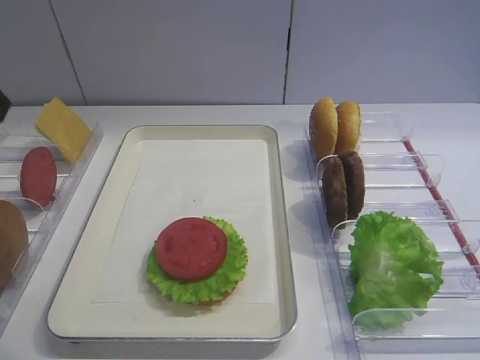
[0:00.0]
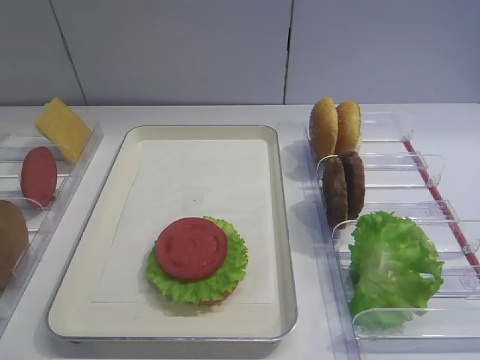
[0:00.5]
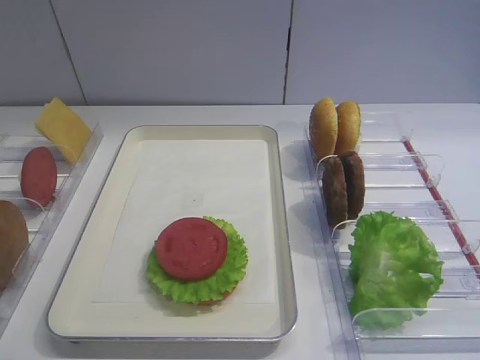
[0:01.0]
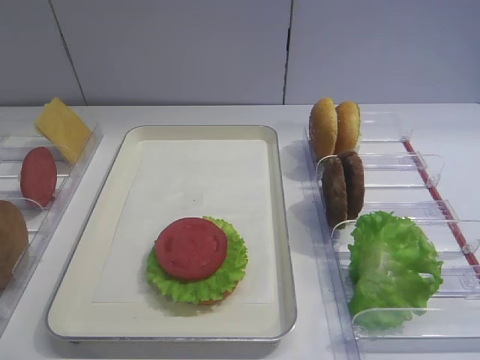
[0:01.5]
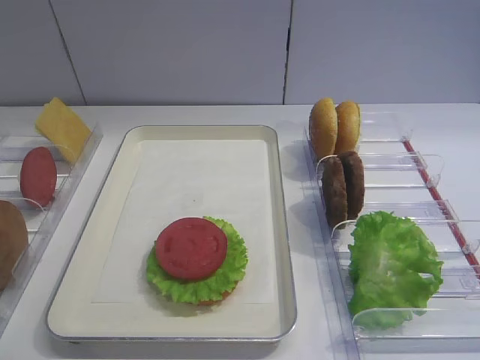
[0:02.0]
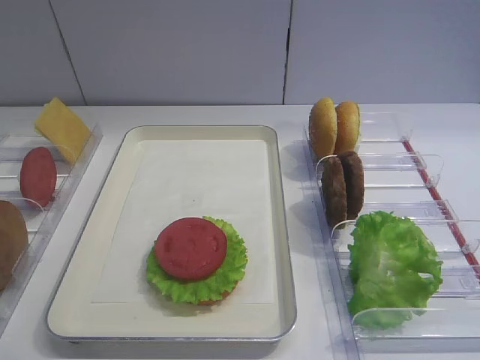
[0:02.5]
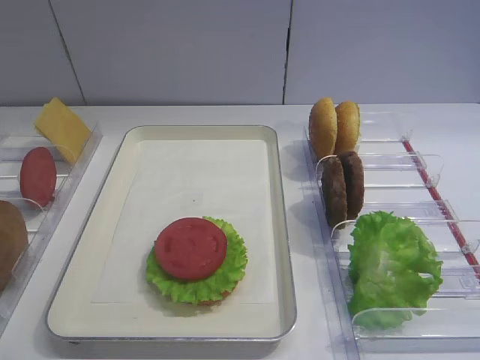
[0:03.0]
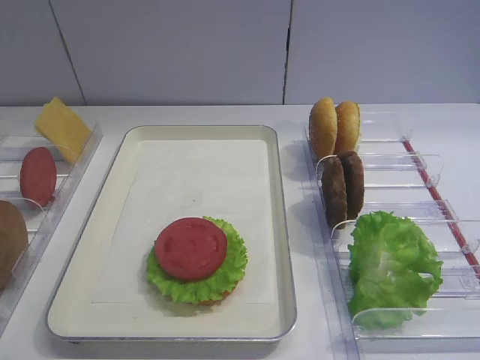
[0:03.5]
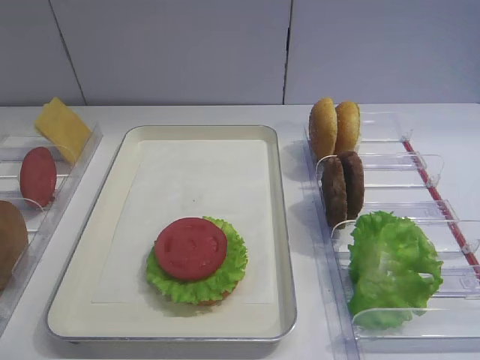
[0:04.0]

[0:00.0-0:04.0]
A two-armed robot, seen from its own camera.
0:02.0 to 0:04.0: Both grippers stay put.

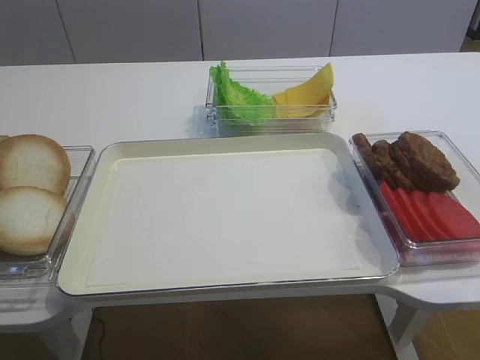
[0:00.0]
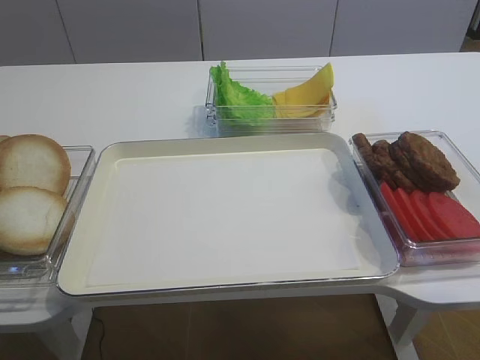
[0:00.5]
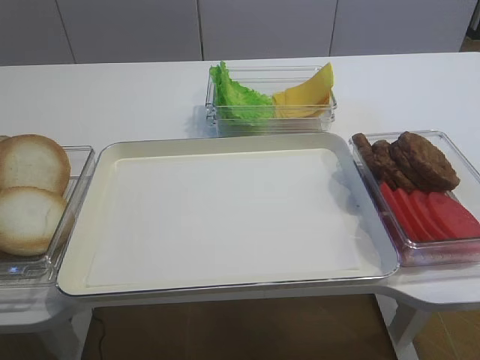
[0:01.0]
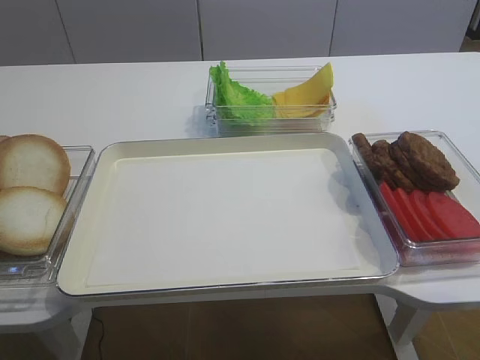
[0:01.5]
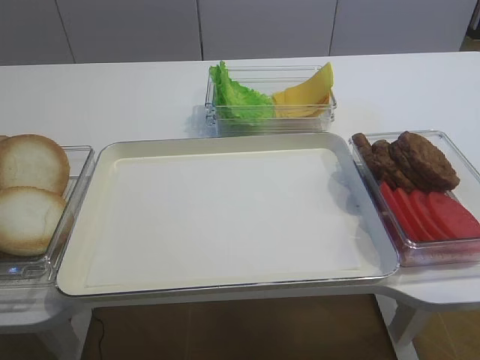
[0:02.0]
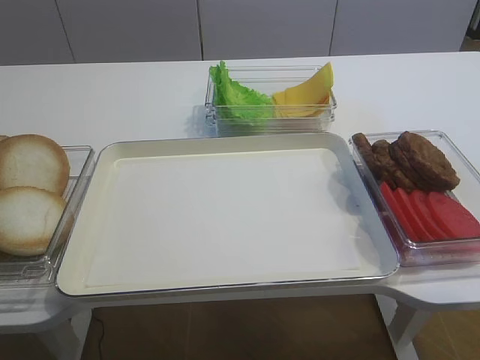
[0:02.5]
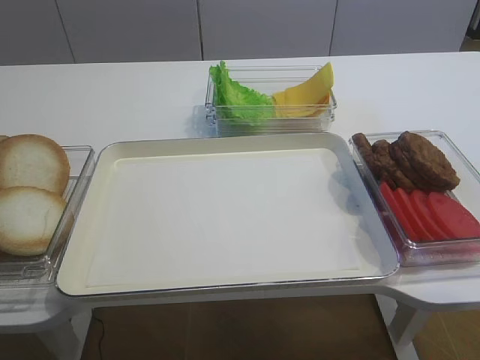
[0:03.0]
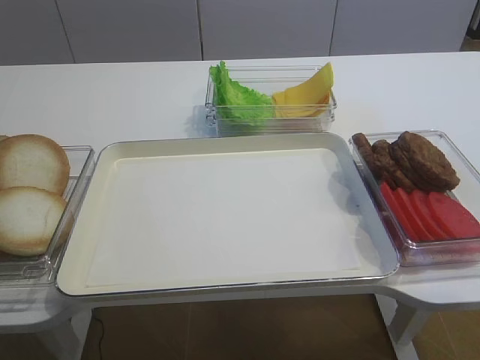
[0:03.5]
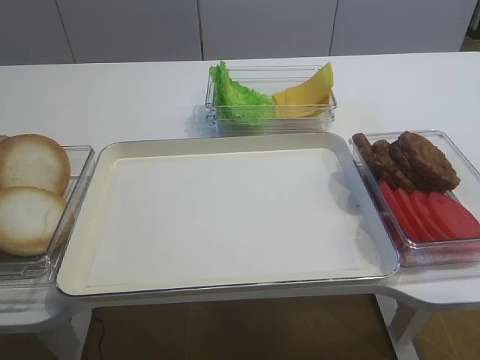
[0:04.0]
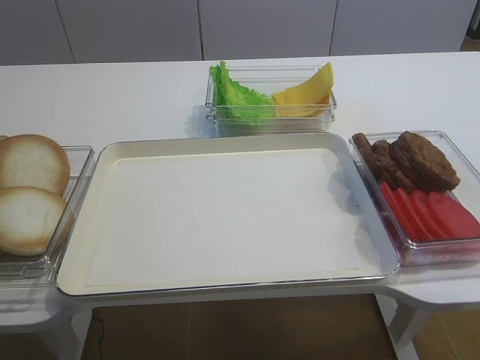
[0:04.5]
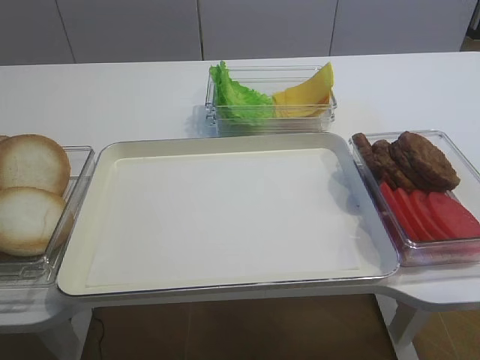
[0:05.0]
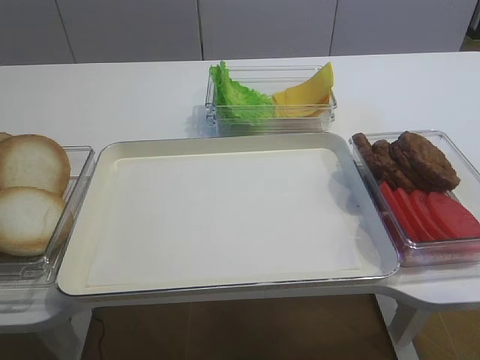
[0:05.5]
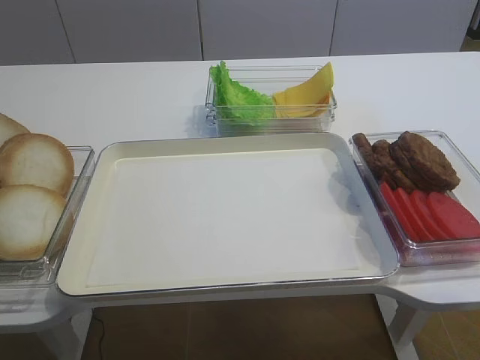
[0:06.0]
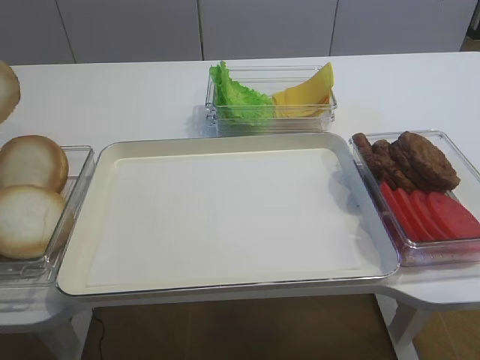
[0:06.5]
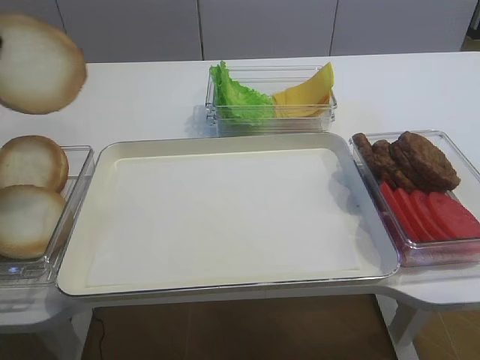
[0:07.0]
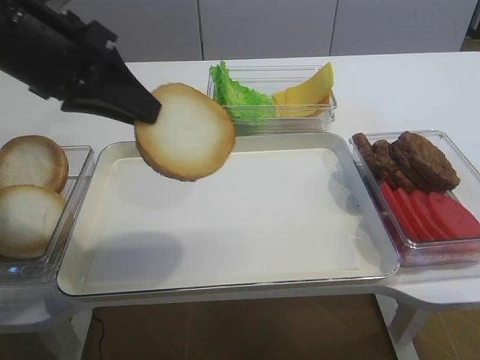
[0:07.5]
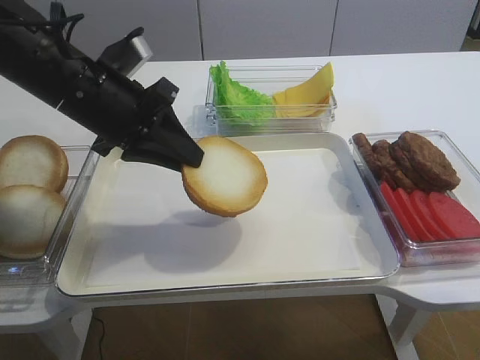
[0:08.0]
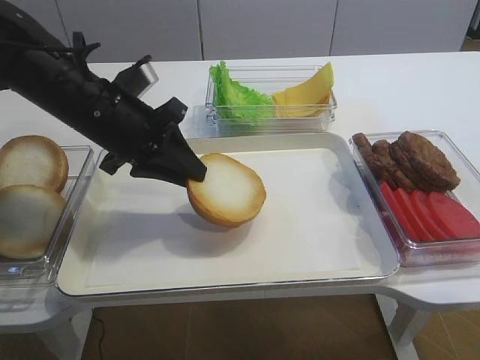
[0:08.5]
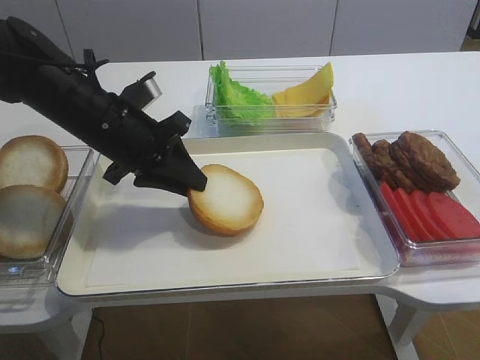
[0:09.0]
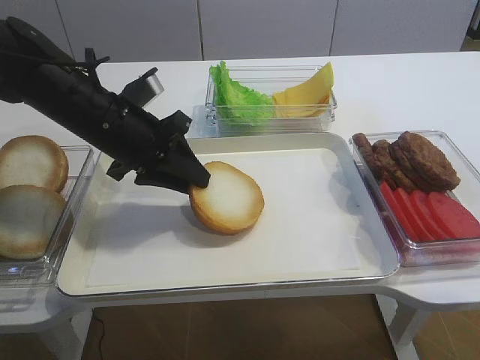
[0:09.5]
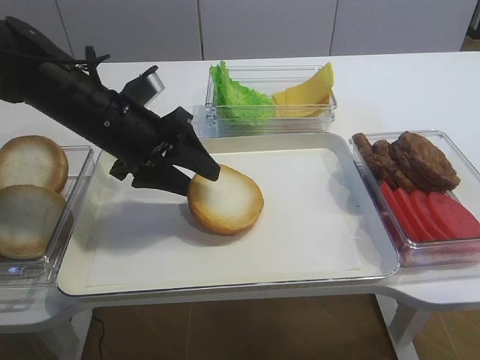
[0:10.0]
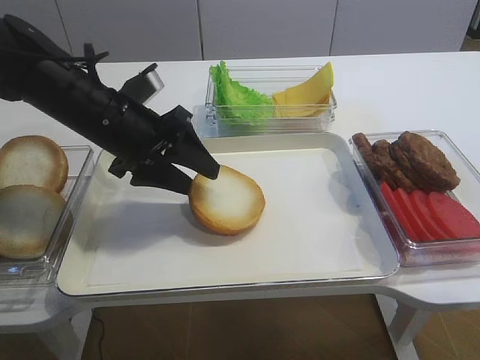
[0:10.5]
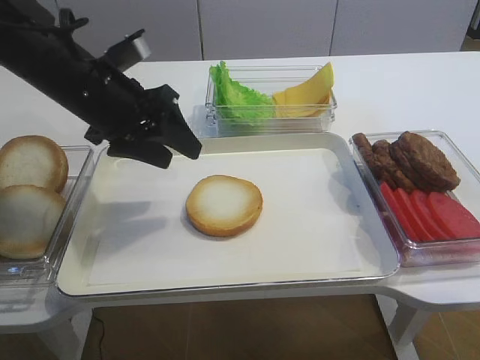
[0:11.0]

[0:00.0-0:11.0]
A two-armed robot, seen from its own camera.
Step, 0:00.0 to 0:06.0: Pick up the bread slice with the left gripper.
Step, 0:06.5 to 0:10.5: Place the bread slice on the tray with the left gripper.
0:05.5 to 0:07.5: The left gripper travels to the right by some 20 cm.
0:07.5 to 0:09.0: The left gripper travels downward by about 5 cm.
0:09.0 to 0:11.0: The left gripper moves upward, about 10 cm, and opens its fingers.

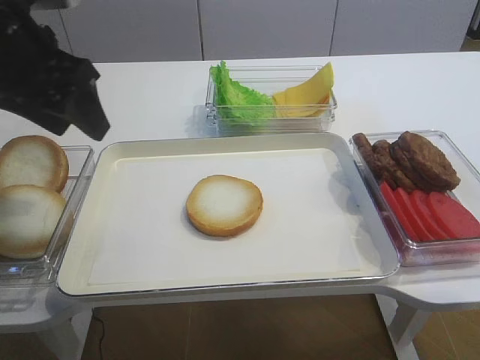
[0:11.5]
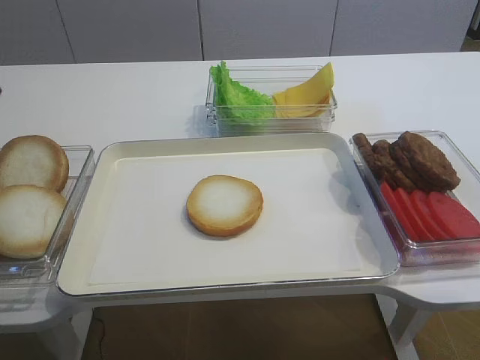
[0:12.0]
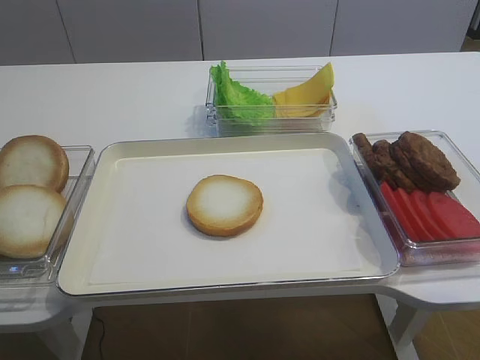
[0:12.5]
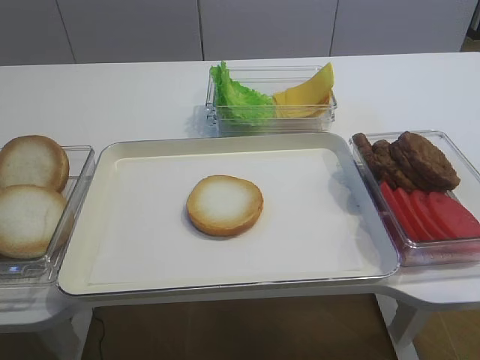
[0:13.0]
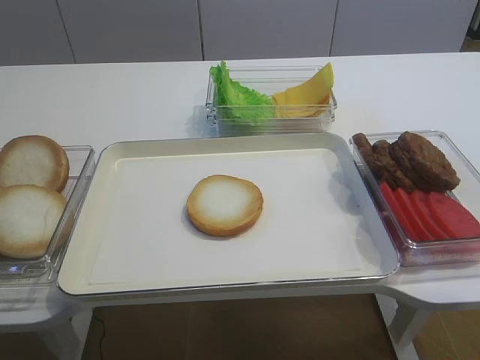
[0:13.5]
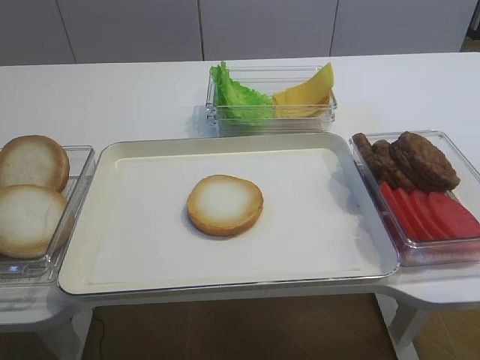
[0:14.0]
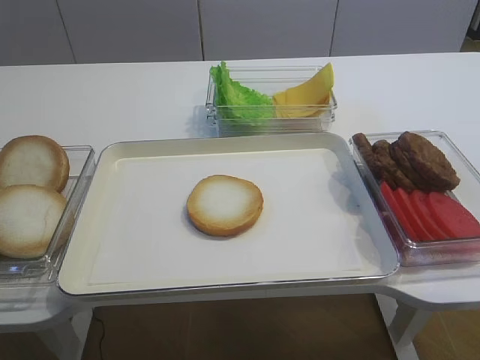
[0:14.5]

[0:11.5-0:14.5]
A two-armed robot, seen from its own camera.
0:11.5 to 0:13.0: The left gripper travels backward by some 25 cm.

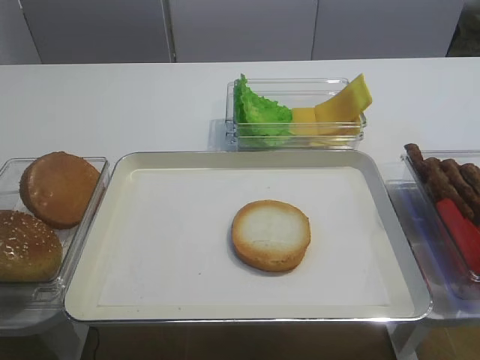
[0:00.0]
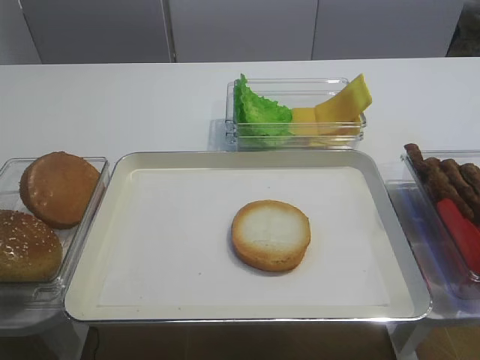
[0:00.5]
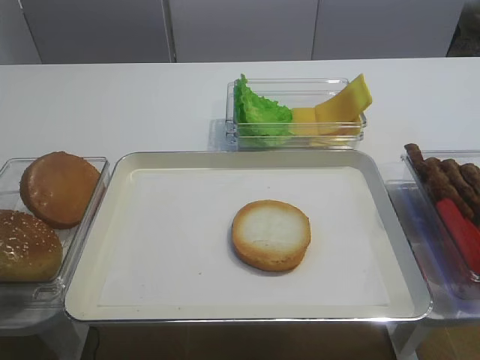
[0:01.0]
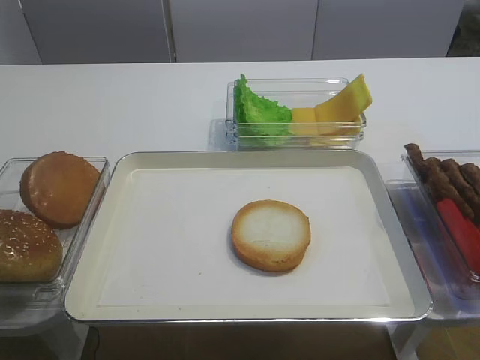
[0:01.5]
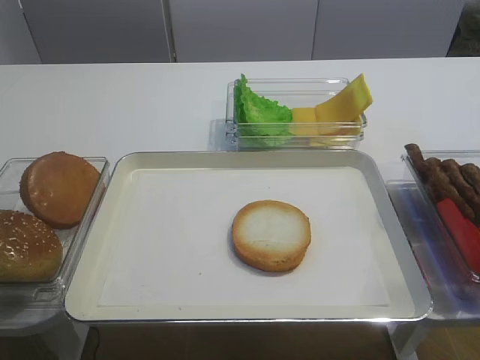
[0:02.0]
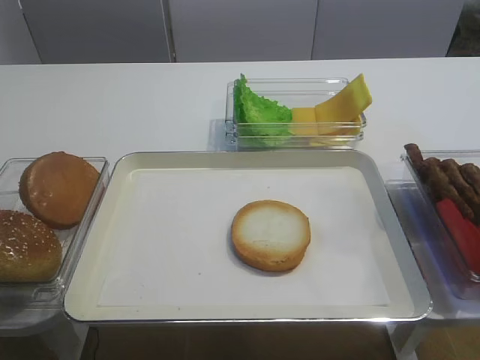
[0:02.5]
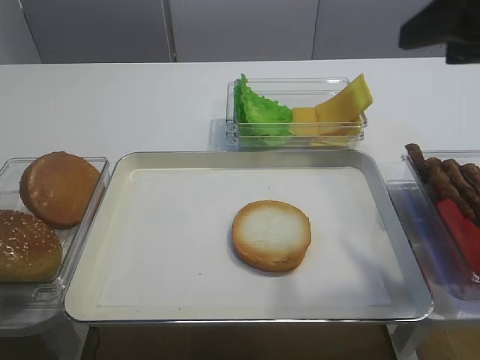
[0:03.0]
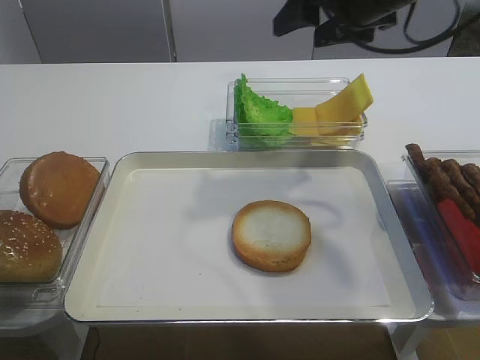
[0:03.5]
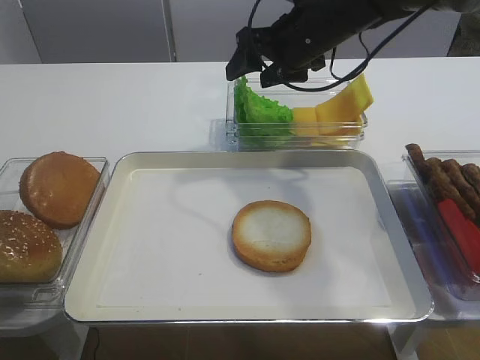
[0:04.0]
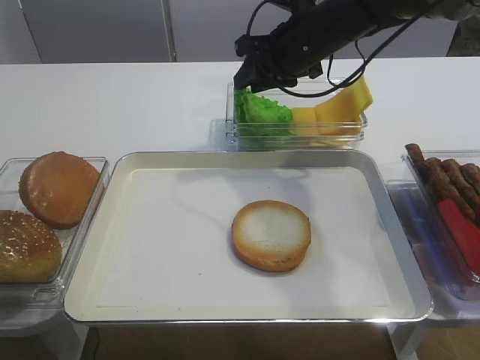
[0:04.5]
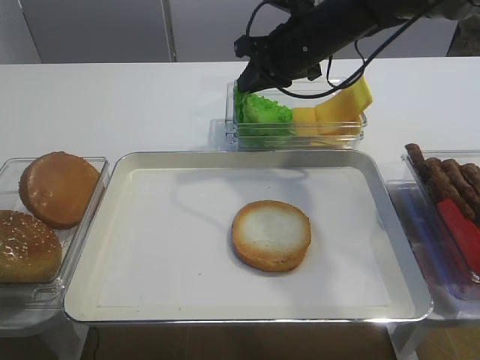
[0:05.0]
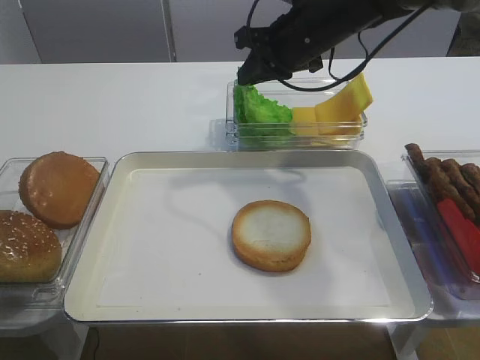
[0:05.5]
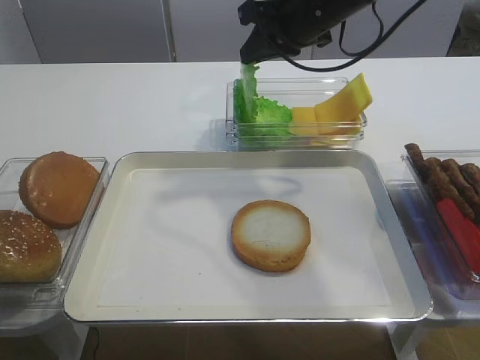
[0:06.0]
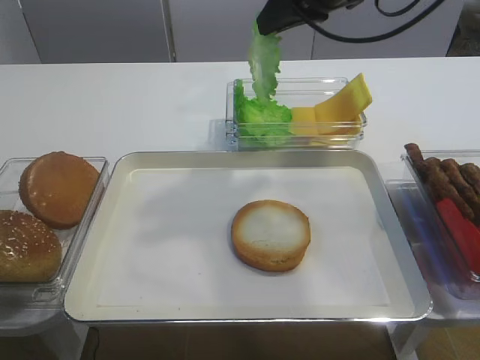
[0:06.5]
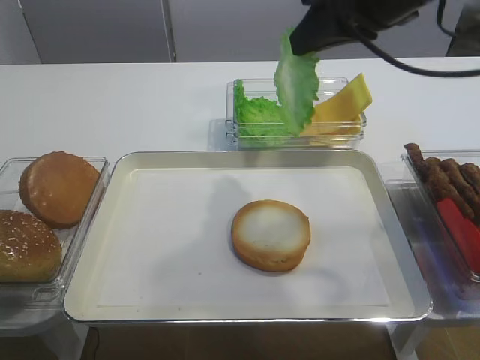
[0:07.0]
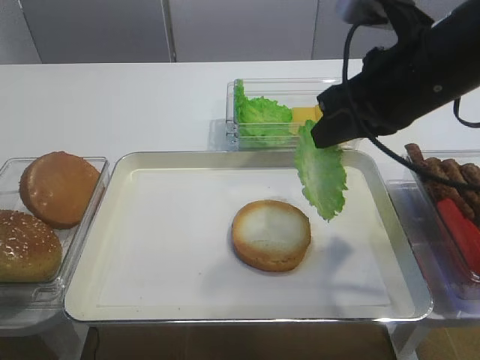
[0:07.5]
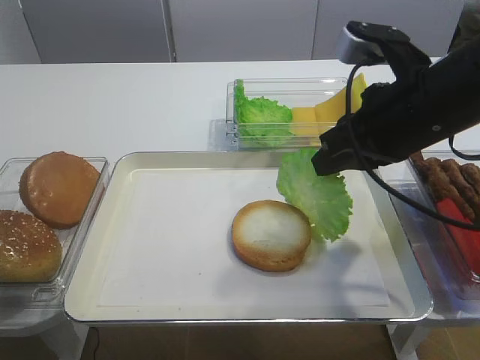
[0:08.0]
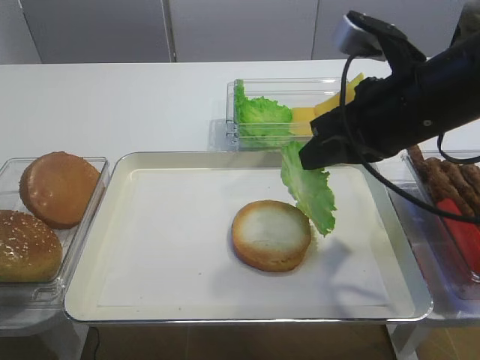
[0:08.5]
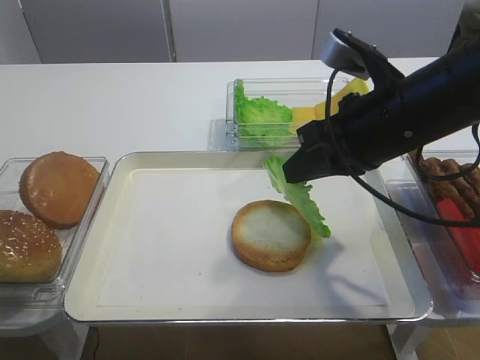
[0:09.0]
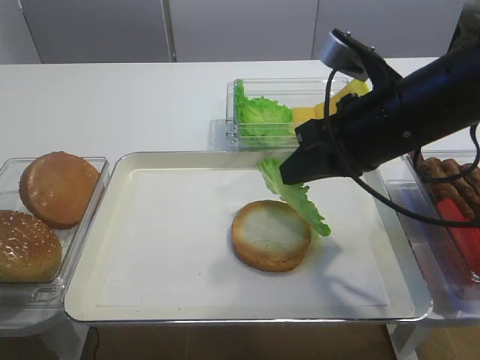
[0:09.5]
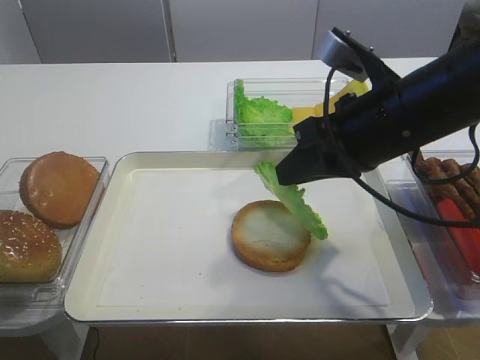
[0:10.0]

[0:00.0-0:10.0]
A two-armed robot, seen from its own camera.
Step, 0:00.0 to 0:06.0: Pick up the lettuce leaf with the right gripper.
0:02.0 to 0:04.0: The right gripper heads forward and to the left, covering some 50 cm.
0:04.0 to 0:06.0: The right gripper closes its fingers.
0:06.0 to 0:08.0: The right gripper heads backward, covering roughly 15 cm.
0:08.0 to 0:10.0: The grippers stay close to where they were, moving slightly.
